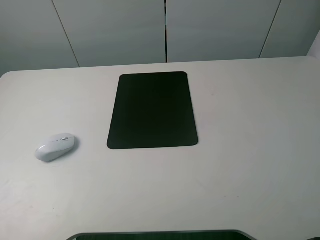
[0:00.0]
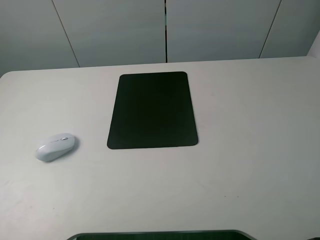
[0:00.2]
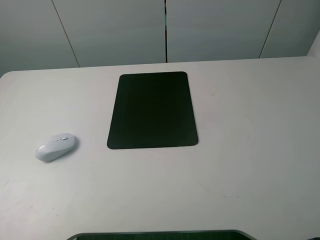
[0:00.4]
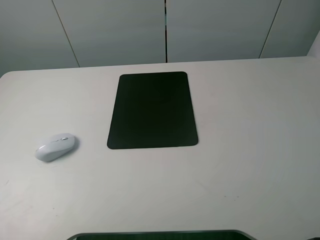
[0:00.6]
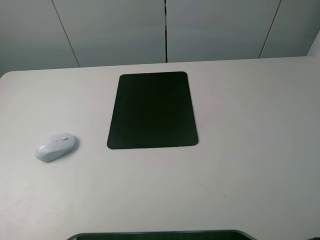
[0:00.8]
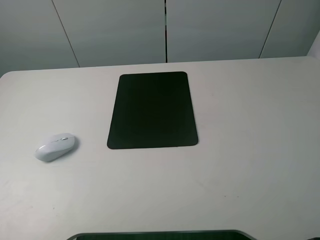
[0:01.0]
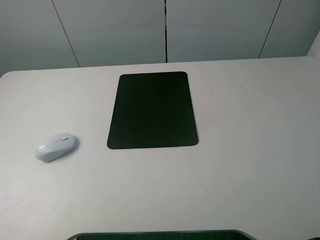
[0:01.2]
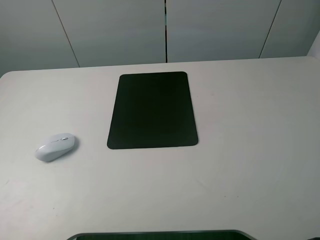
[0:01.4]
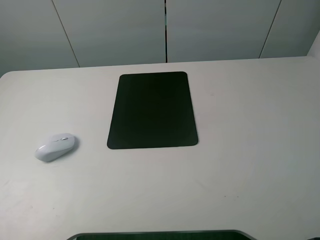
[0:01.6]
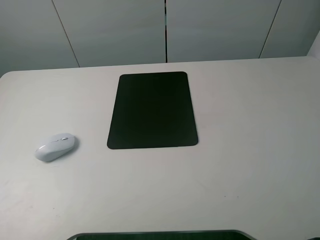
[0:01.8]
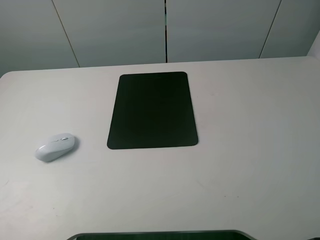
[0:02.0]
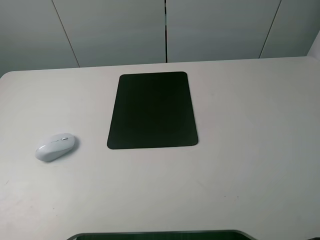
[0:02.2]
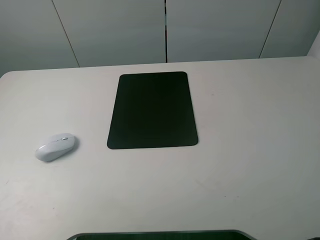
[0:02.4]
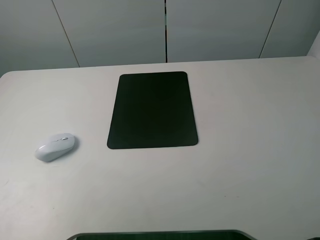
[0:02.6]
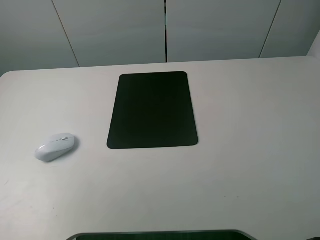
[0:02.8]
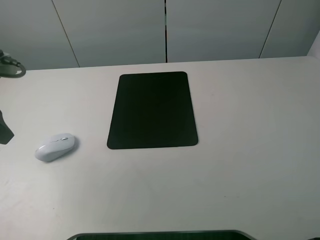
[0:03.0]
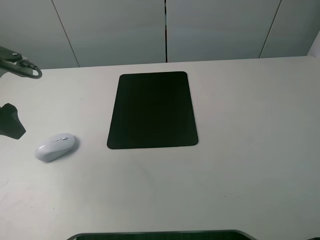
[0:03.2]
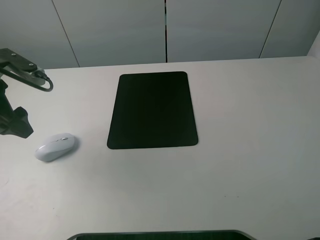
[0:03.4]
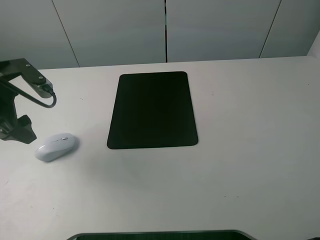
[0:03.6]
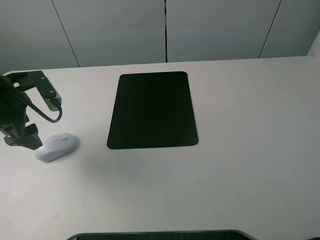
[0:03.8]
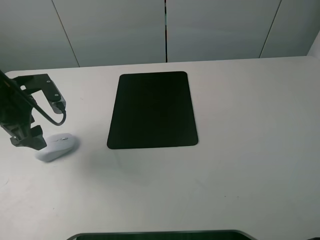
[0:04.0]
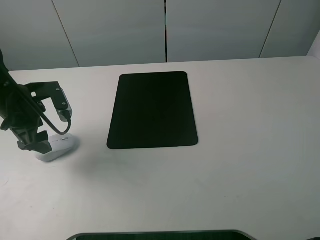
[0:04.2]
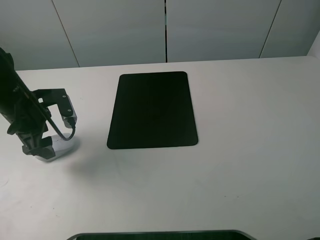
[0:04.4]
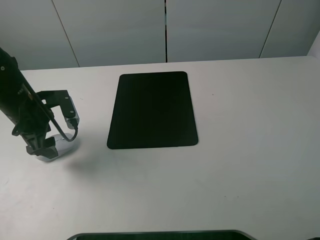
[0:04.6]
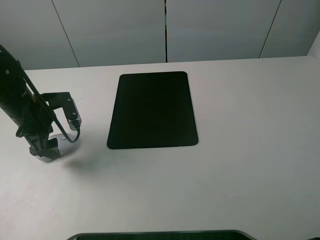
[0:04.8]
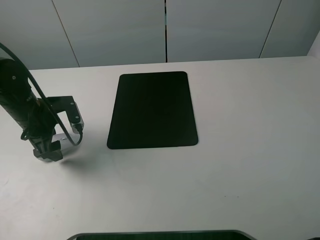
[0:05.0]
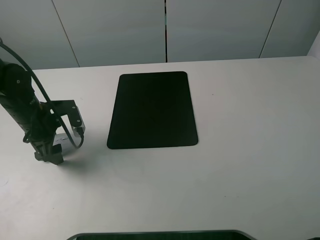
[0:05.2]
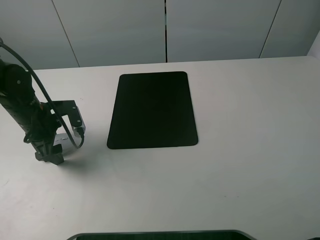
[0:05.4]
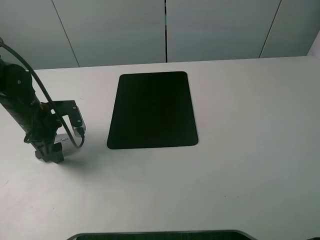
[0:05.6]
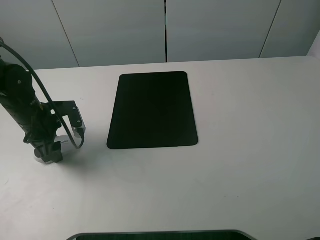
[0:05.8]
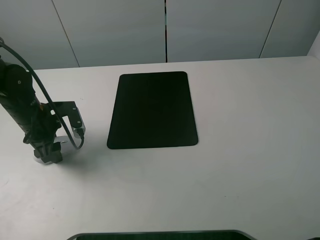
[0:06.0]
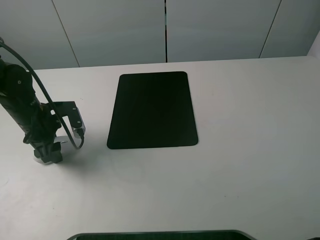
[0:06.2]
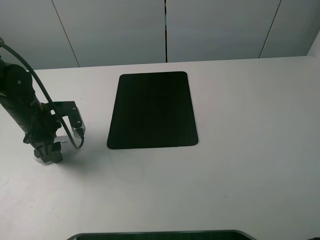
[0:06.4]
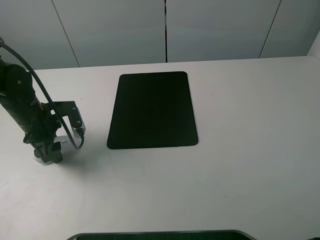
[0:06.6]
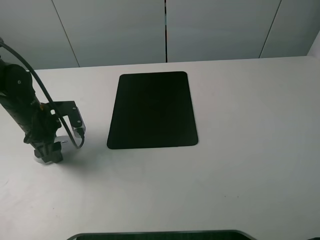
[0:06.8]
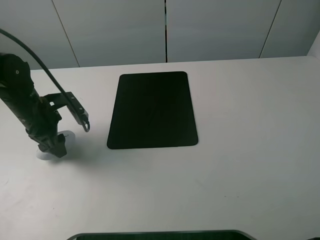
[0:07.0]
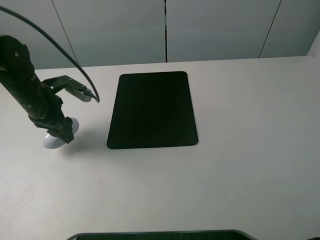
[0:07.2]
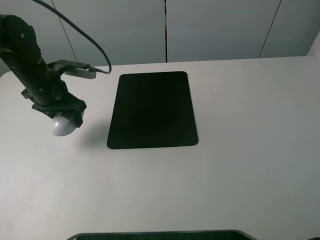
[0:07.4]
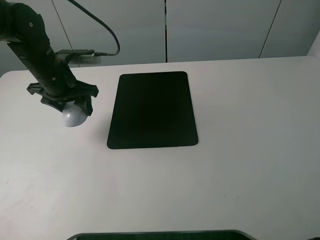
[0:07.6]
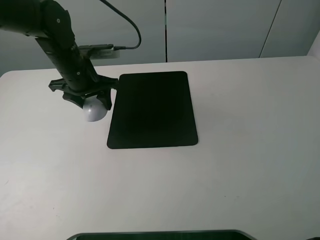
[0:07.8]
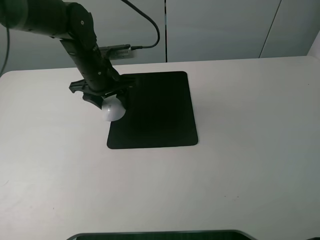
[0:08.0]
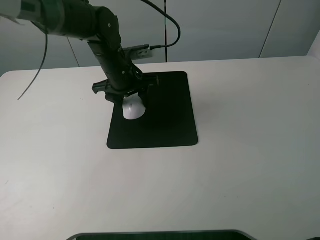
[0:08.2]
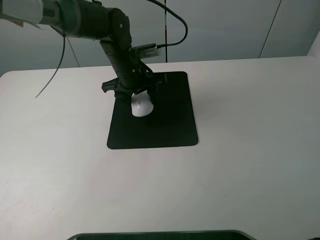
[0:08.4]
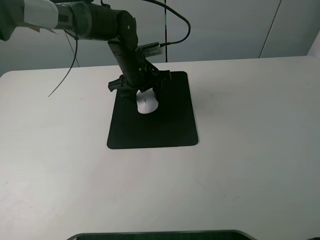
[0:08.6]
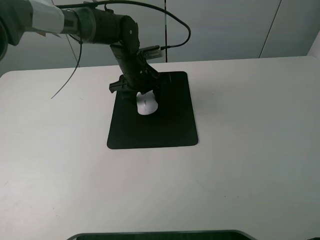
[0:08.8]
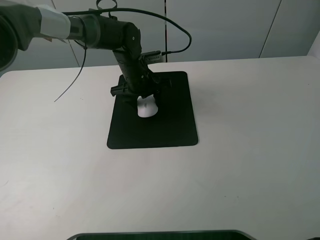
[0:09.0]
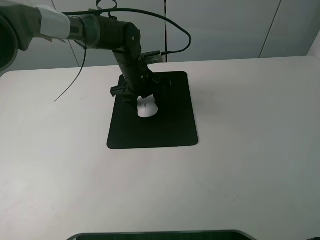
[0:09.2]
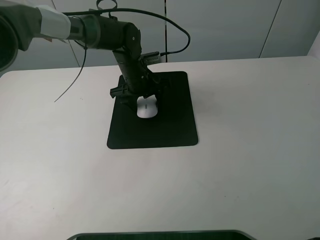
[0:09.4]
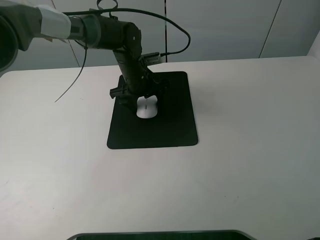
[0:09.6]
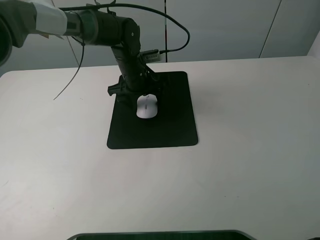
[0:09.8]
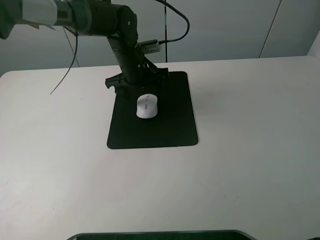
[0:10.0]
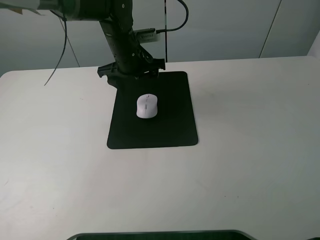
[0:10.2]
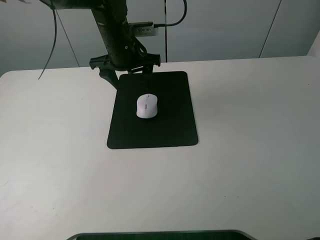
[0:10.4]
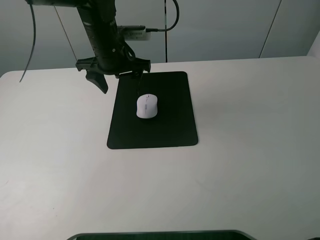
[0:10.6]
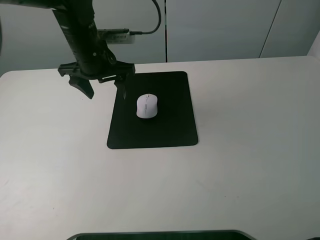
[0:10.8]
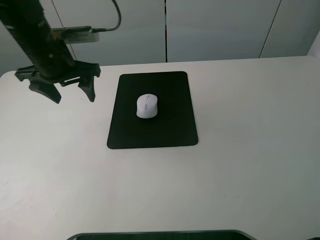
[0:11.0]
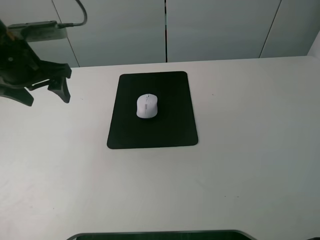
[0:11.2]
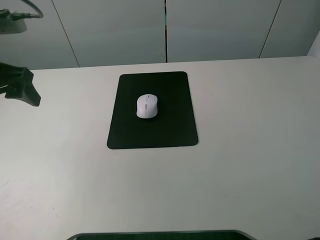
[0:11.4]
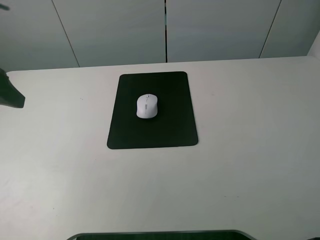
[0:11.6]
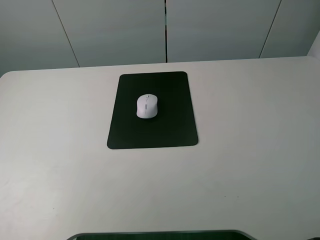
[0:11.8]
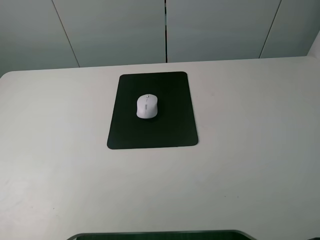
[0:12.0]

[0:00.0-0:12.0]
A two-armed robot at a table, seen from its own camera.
Step, 0:00.0 to 0:06.0: Grasp the mouse with the left gripper.
Step, 0:06.2 to 0:09.8: Place the mouse on the mouse mat with the left gripper.
0:00.0 to 0:01.6: Neither gripper changes place.
0:01.6 to 0:03.0: The left gripper travels forward by approximately 20 cm.
0:03.0 to 0:04.4: The left gripper heads downward and forward, covering roughly 15 cm.
0:04.4 to 0:06.0: The left gripper closes its fingers.
0:06.0 to 0:07.6: The left gripper moves upward, to the right and forward, approximately 10 cm.
0:07.6 to 0:09.0: The left gripper heads to the right, forward and downward, covering about 20 cm.
0:09.0 to 0:10.4: The left gripper moves upward, some 10 cm, and opens its fingers.
0:10.4 to 0:12.0: The left gripper is displaced backward, to the left and upward by about 40 cm.

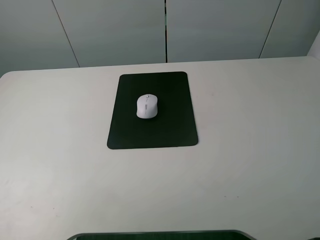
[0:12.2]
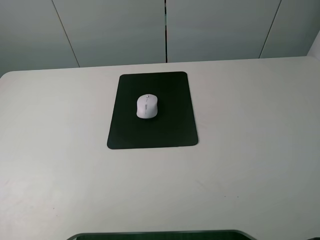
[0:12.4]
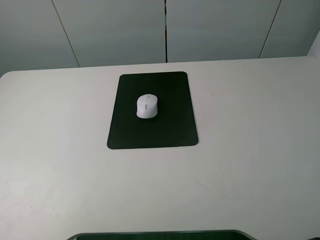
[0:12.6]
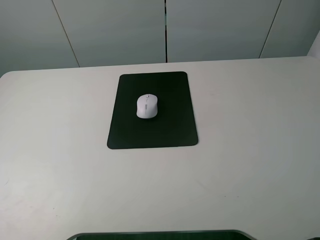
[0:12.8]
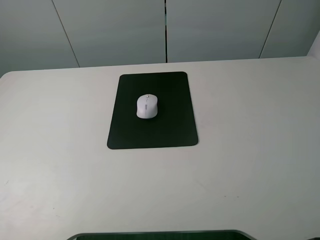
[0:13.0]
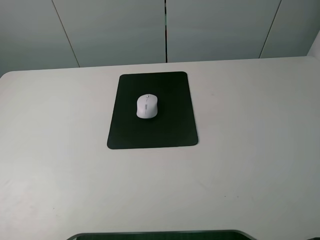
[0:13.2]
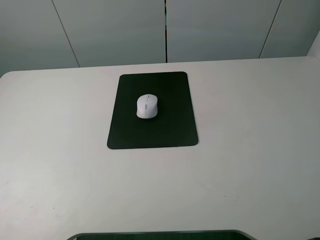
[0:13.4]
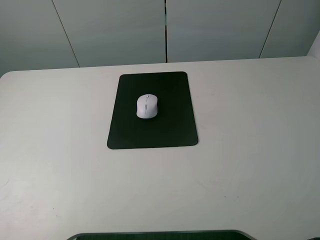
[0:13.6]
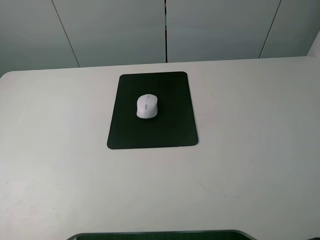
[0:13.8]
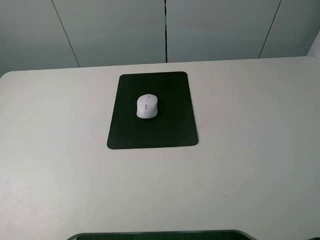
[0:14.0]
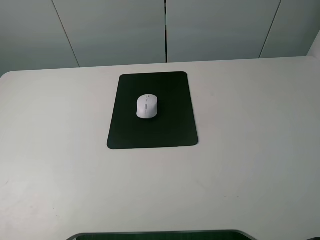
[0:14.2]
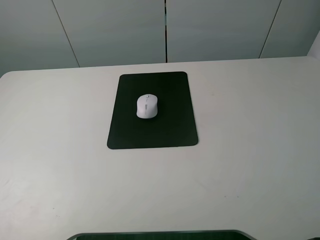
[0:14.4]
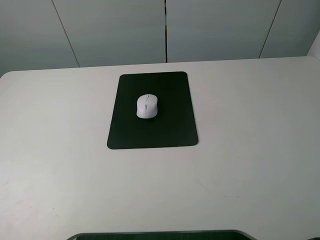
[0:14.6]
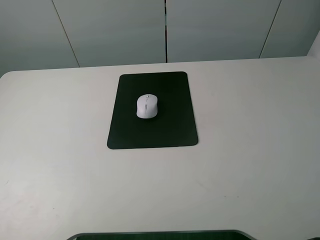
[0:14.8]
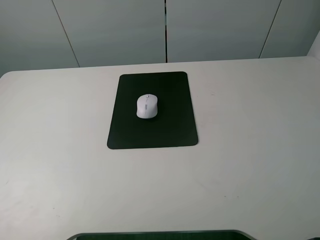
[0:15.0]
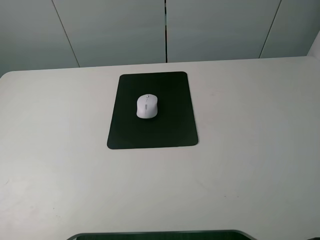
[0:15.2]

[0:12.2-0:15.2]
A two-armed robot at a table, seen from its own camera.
0:13.8 to 0:15.2: Both grippers stay put.
